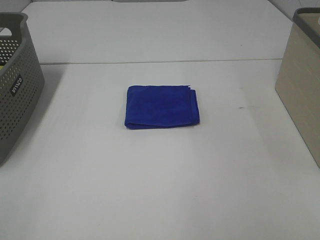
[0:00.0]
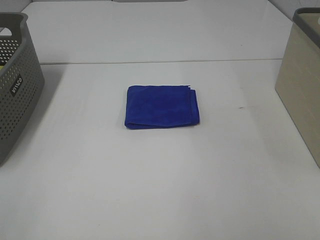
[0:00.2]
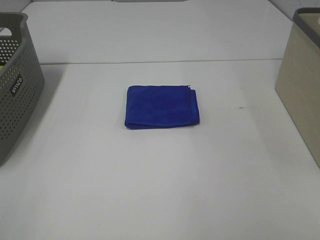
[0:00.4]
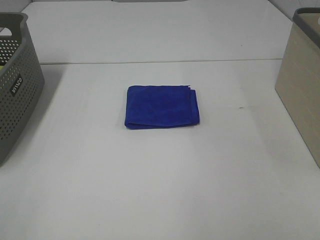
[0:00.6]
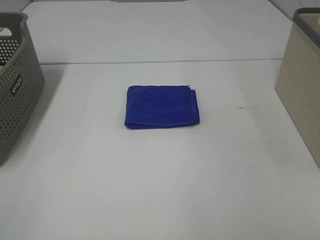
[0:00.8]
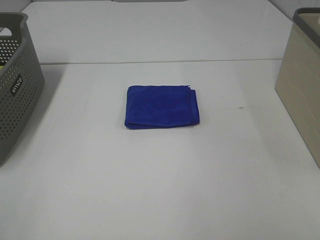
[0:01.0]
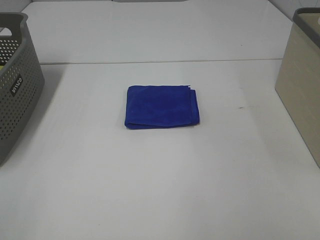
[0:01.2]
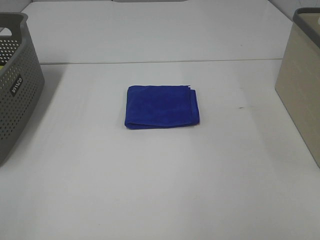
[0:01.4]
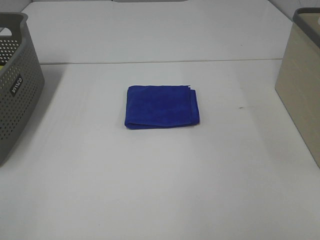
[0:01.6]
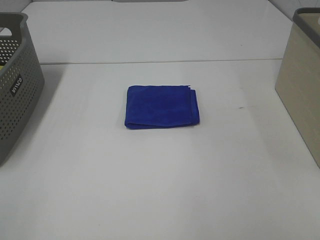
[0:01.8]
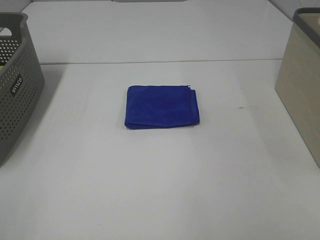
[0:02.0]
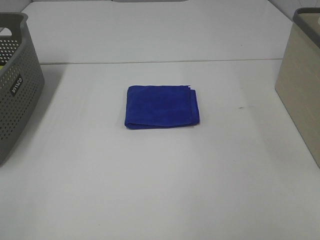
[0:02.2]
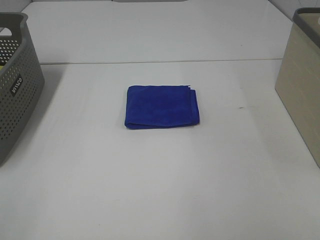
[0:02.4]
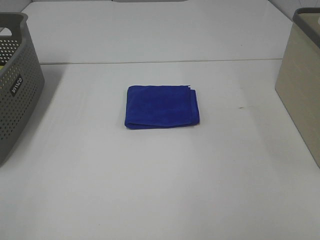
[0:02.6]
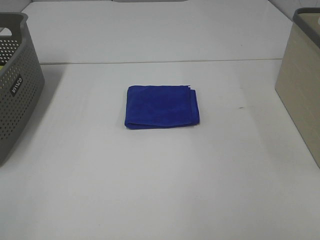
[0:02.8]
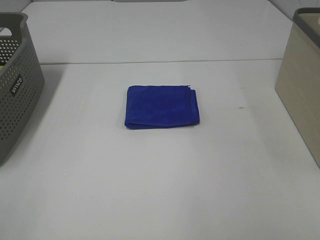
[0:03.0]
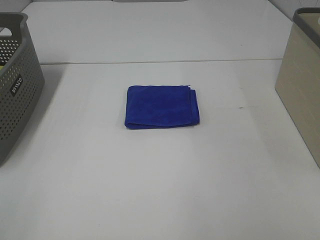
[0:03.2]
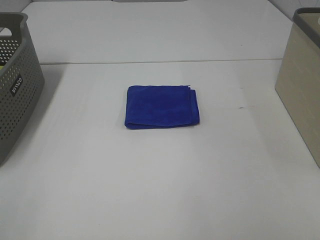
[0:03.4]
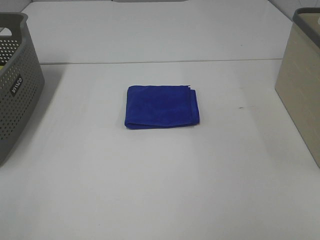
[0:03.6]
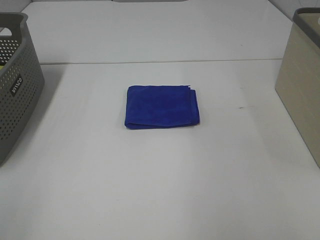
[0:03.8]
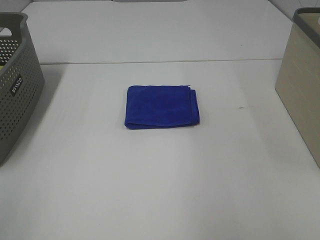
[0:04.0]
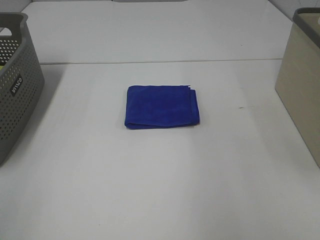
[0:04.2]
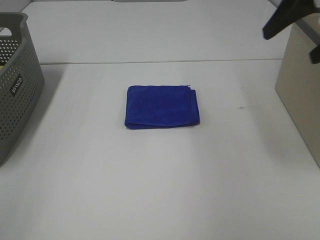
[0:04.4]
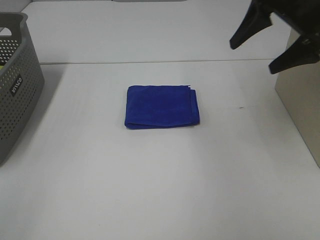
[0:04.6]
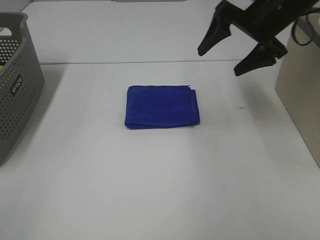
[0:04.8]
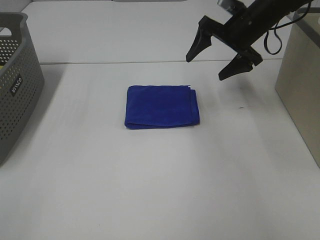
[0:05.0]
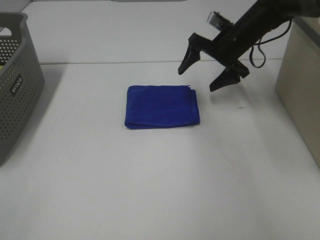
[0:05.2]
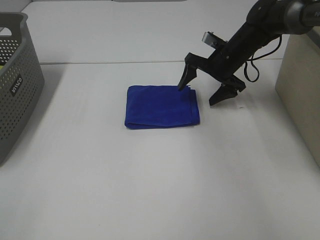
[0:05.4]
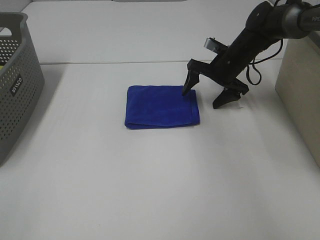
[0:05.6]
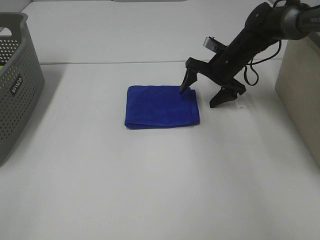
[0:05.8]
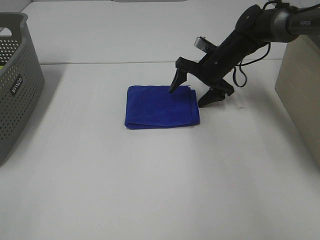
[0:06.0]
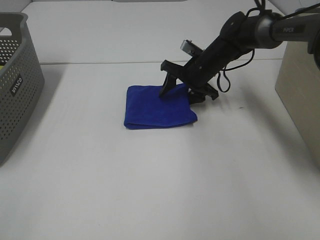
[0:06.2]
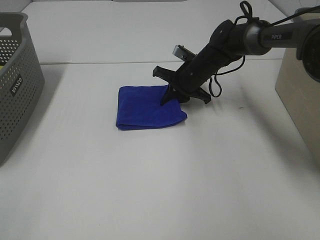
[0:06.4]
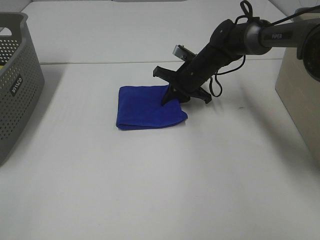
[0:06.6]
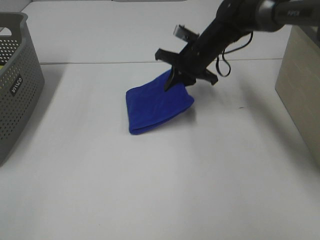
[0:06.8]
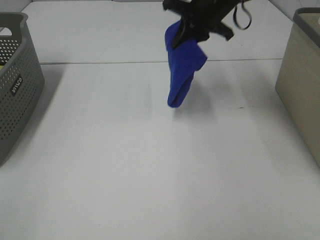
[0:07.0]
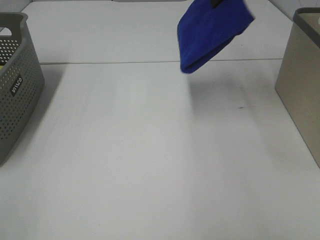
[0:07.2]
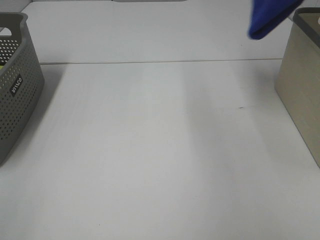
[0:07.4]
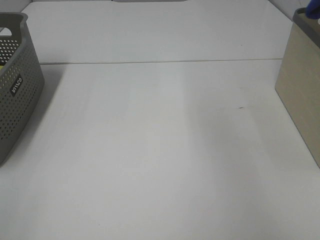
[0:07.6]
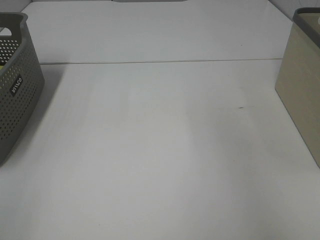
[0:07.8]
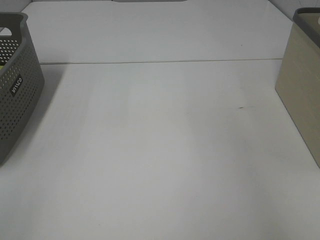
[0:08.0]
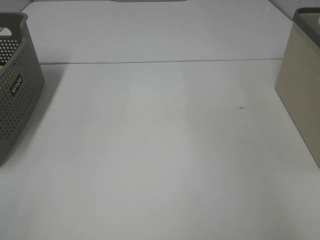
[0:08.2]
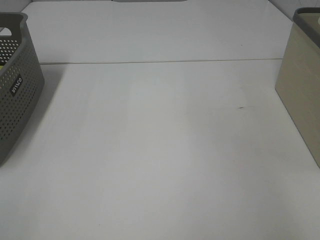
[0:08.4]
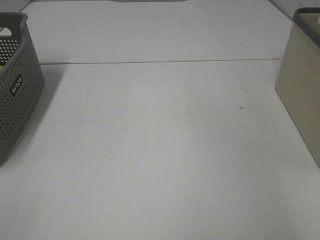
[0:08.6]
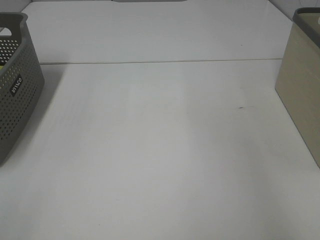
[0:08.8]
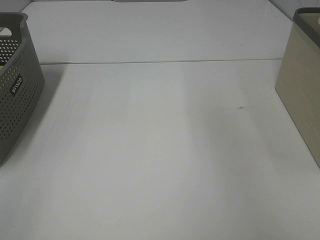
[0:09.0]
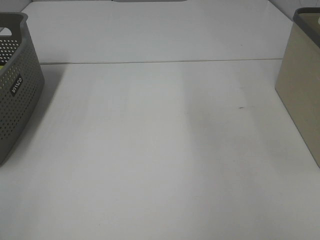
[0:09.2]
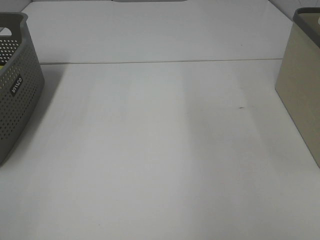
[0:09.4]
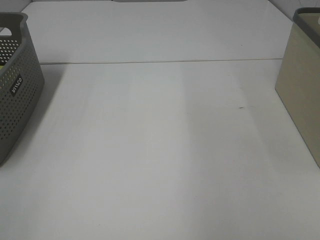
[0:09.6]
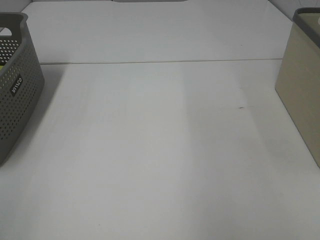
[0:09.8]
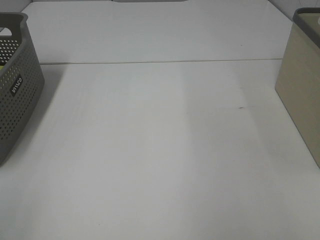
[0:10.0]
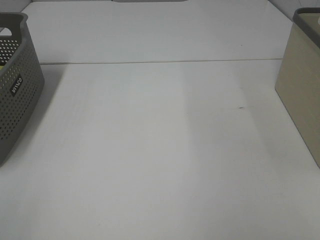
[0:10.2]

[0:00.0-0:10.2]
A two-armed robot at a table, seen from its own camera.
Step, 0:00.0 to 0:06.4: Right hand: grab the folded blue towel.
Step, 0:06.6 to 0:08.6: Right hand: place the blue towel in right basket.
0:00.0 to 0:03.0: Both grippers stay put.
0:03.0 to 0:04.4: The right gripper heads forward, covering roughly 30 cm.
0:04.4 to 0:05.8: The right gripper is displaced downward and forward by approximately 30 cm.
0:05.8 to 0:07.2: The right gripper travels upward by approximately 25 cm, and closes its fingers.
0:07.2 to 0:08.8: The right gripper moves to the right, about 20 cm, and opens.

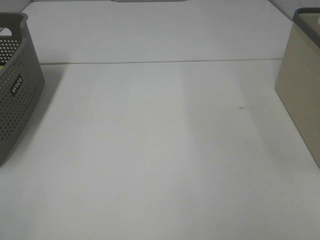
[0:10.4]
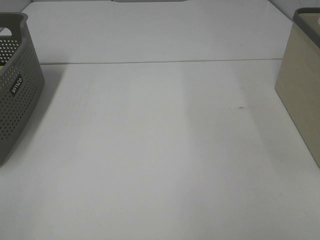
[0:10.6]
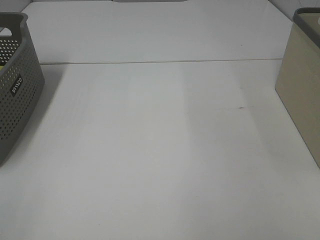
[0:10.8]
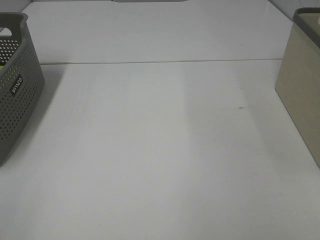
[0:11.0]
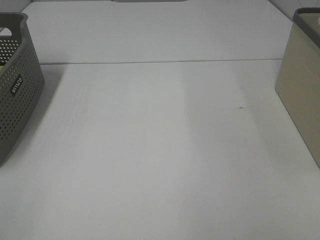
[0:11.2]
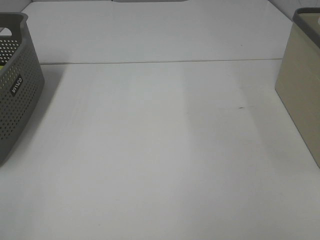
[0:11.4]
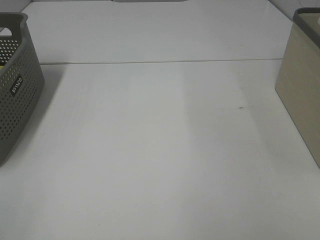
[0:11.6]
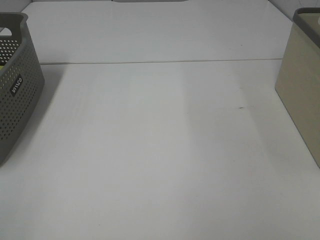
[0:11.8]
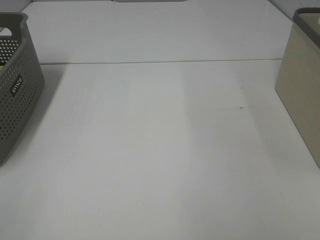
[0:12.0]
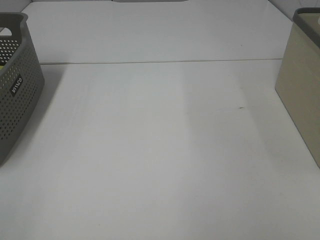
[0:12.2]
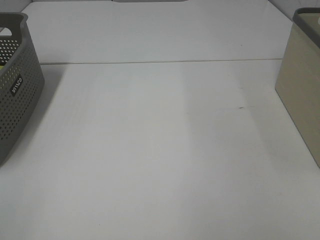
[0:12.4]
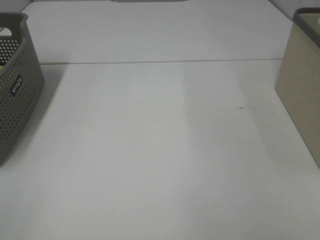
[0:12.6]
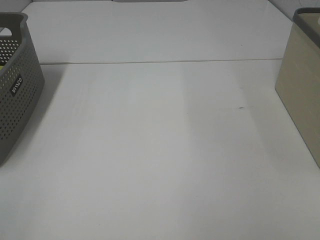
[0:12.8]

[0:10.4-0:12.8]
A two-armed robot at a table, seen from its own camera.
0:11.6 to 0:12.8: Both grippers stay about where they are.

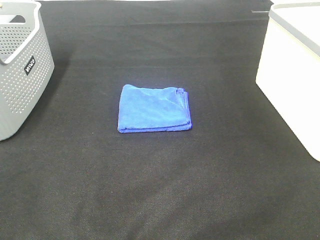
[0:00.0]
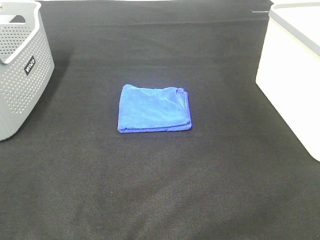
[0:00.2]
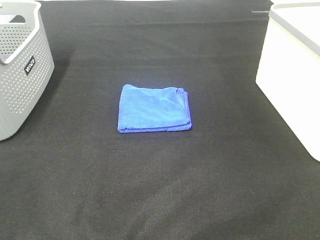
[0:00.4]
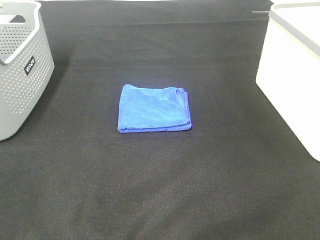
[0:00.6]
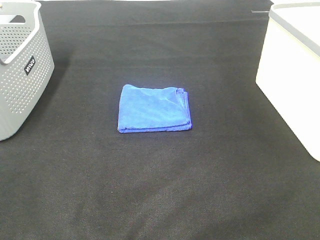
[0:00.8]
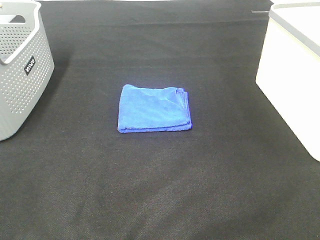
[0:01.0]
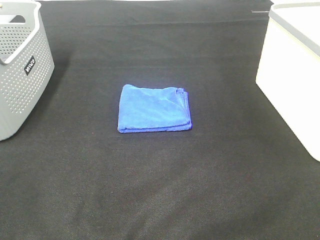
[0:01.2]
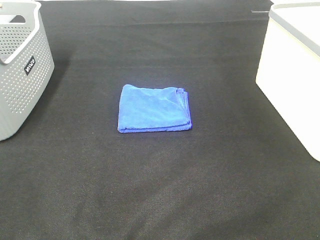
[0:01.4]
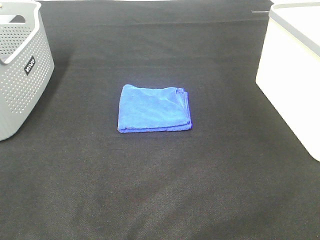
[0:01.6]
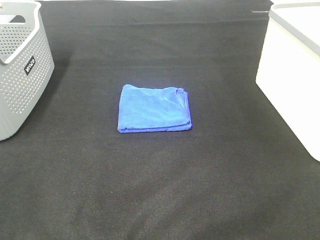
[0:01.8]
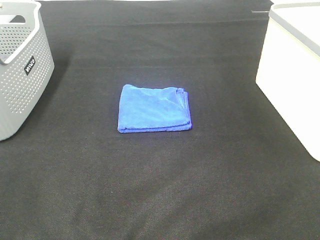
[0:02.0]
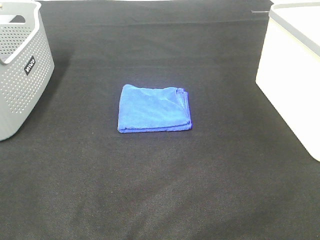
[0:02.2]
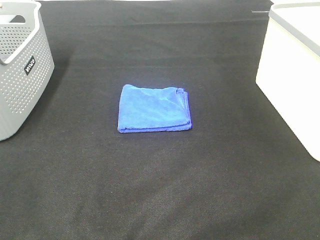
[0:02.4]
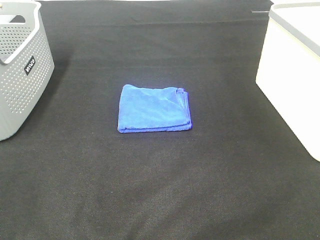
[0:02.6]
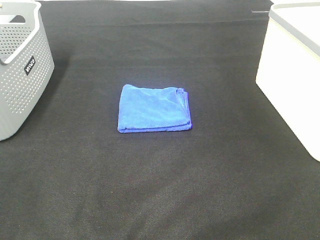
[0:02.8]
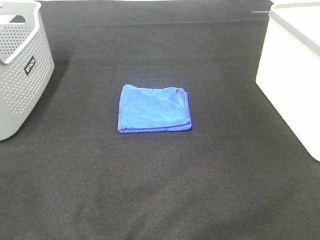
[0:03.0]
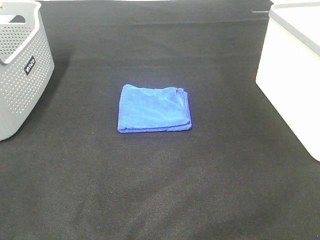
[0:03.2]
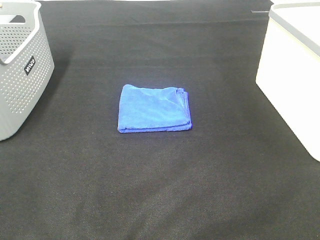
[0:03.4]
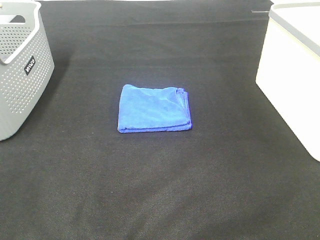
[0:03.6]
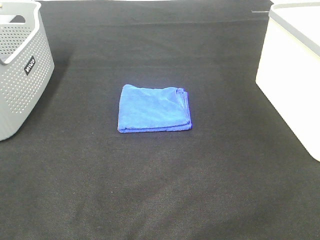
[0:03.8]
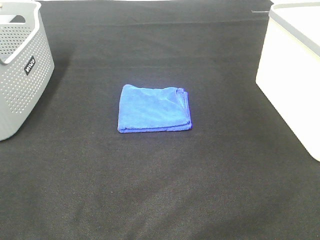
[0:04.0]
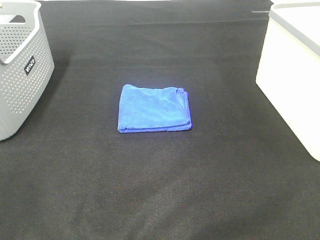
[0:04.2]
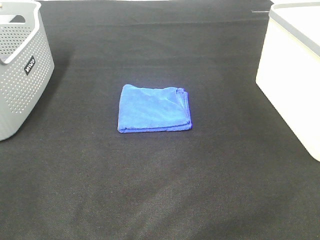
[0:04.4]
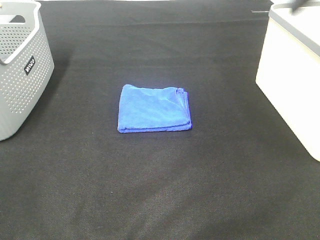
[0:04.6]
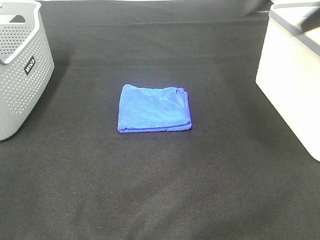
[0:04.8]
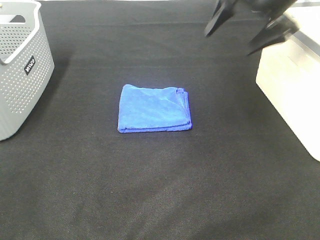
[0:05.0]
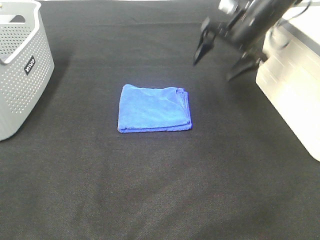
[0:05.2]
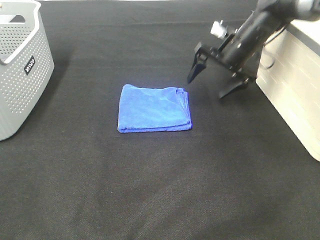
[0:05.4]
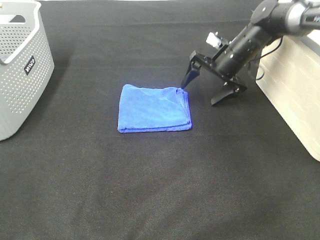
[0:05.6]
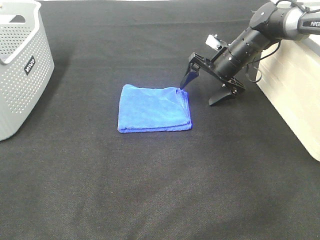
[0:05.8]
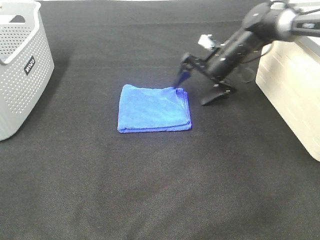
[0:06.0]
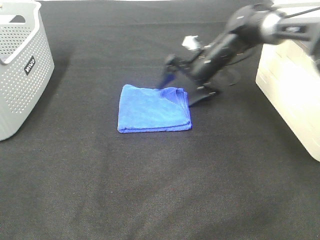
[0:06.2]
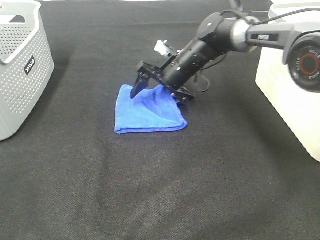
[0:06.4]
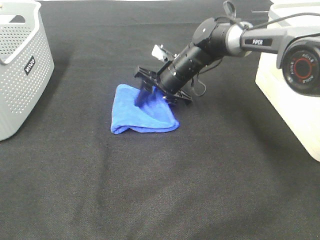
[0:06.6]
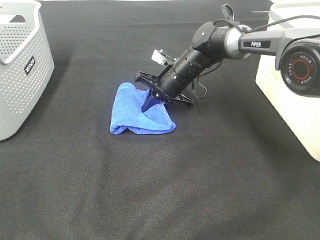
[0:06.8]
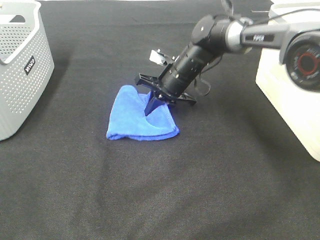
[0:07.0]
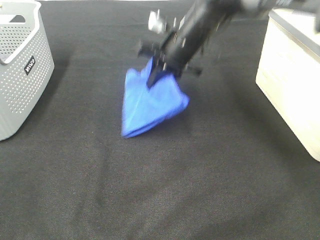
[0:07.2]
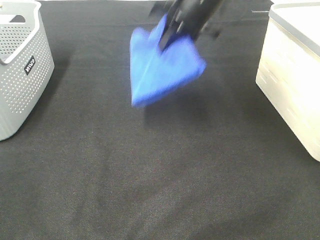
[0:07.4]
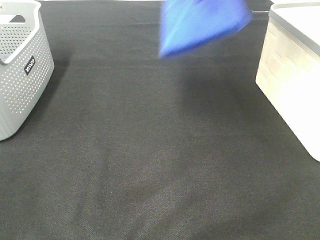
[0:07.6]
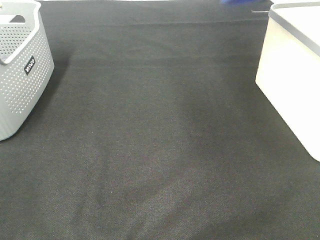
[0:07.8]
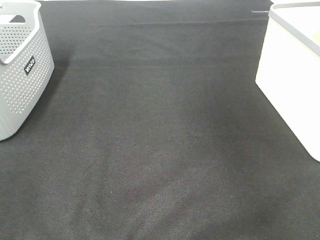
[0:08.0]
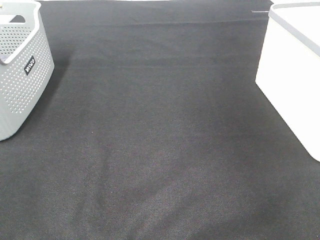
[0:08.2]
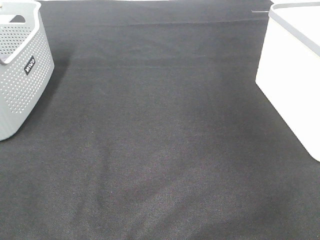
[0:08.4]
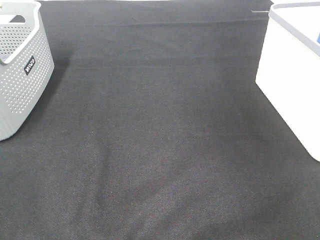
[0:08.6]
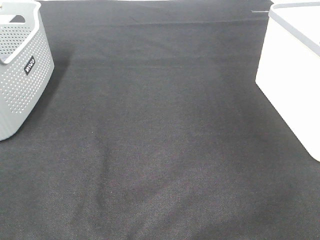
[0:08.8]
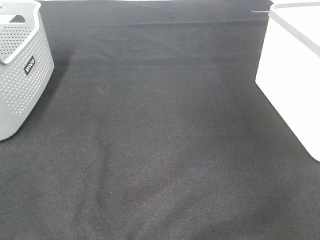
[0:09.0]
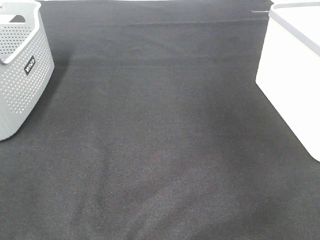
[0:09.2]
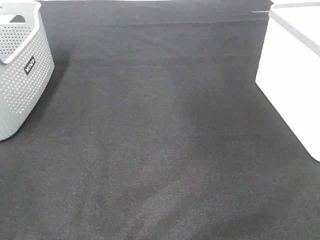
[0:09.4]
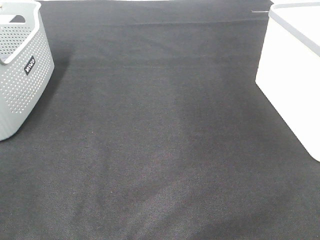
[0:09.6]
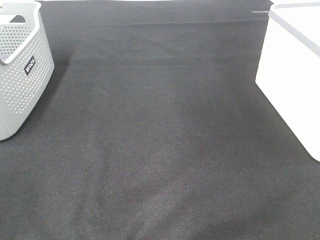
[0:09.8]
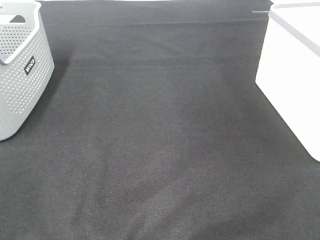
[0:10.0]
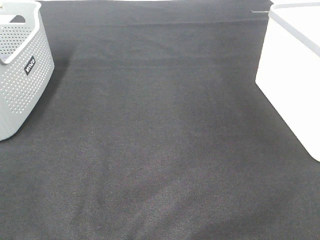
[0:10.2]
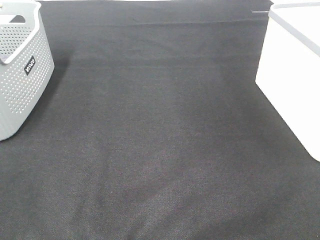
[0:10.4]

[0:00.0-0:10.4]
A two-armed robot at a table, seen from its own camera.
Step, 0:00.0 to 0:06.8: Right hand: grab the folded blue towel.
Step, 0:07.0 to 0:08.8: Right hand: place the blue towel in right basket.
0:00.0 to 0:03.0: Both grippers stay about where they are.
0:04.4 to 0:06.0: The right gripper travels downward, forward and to the left by some 40 cm.
0:06.0 to 0:07.4: The right gripper is displaced upward by roughly 20 cm, and closes its fingers.
0:07.4 to 0:09.0: The right gripper is displaced to the right by some 30 cm, and opens its fingers.
